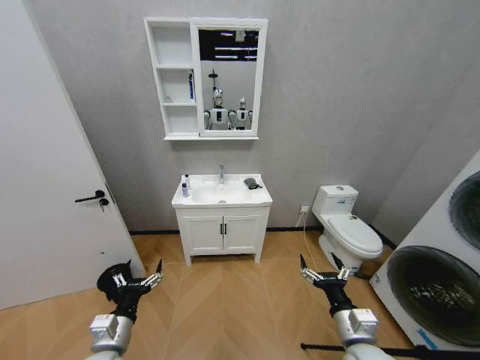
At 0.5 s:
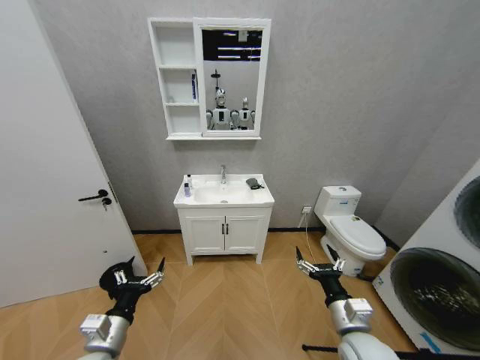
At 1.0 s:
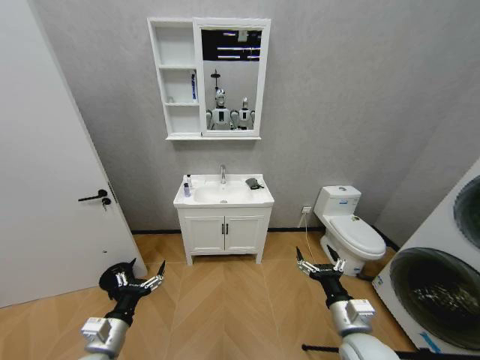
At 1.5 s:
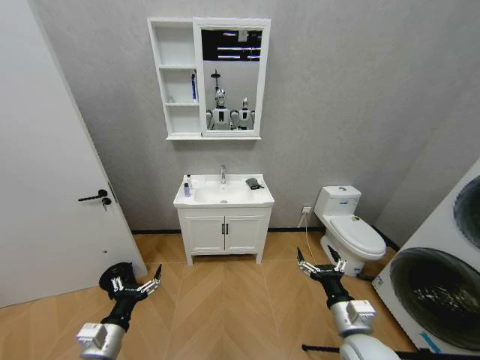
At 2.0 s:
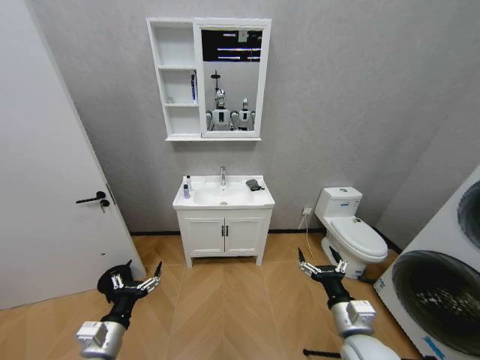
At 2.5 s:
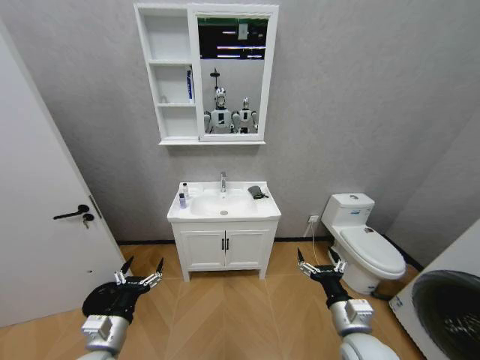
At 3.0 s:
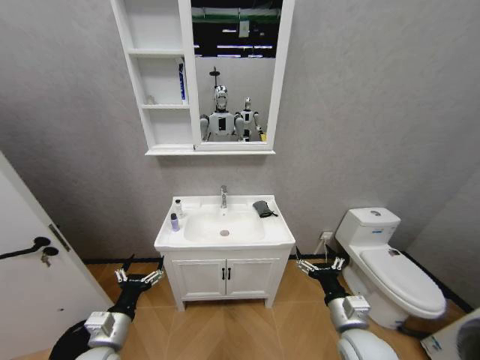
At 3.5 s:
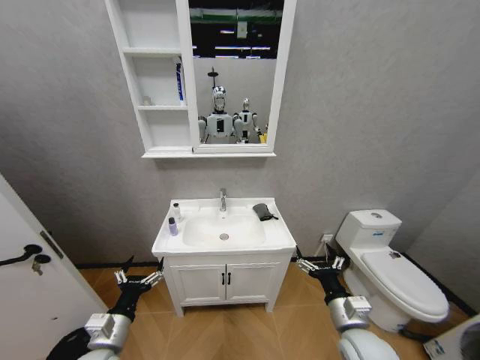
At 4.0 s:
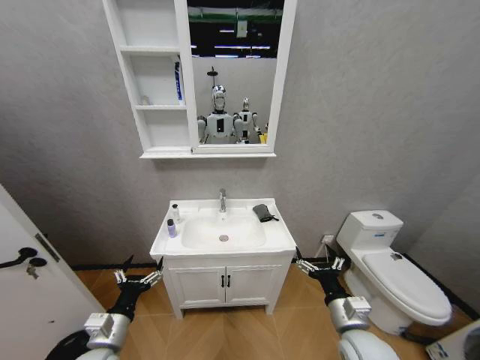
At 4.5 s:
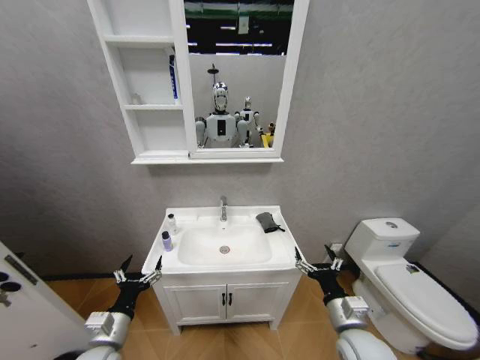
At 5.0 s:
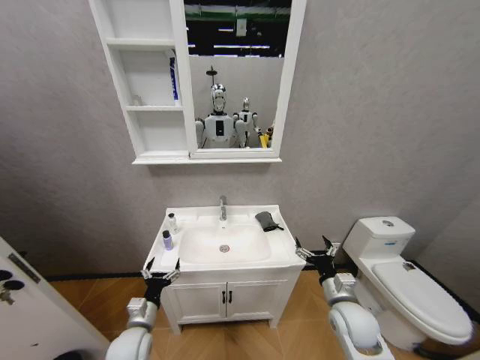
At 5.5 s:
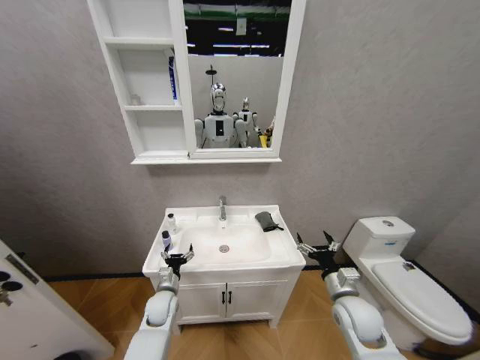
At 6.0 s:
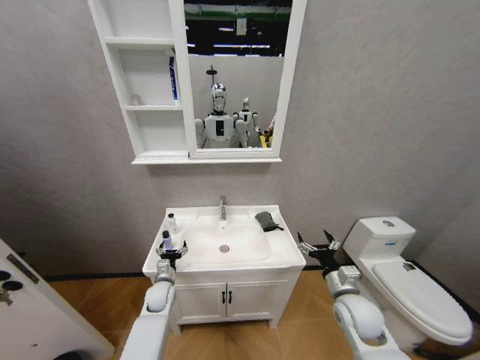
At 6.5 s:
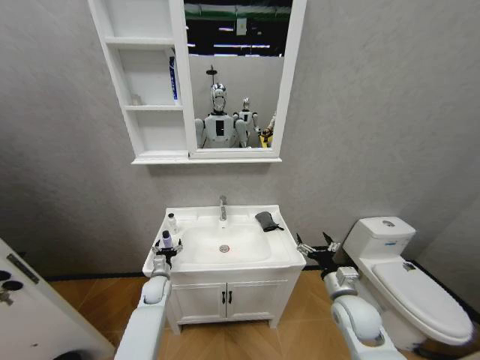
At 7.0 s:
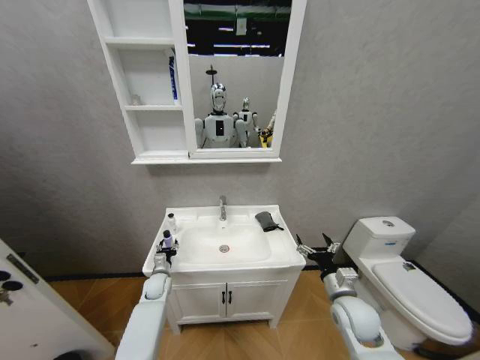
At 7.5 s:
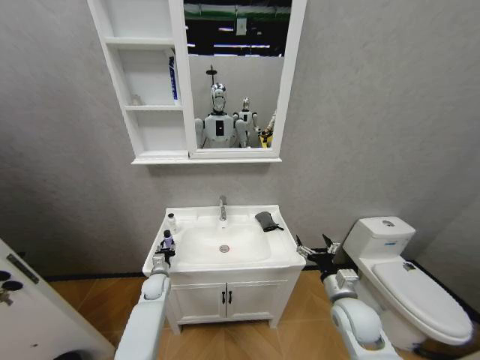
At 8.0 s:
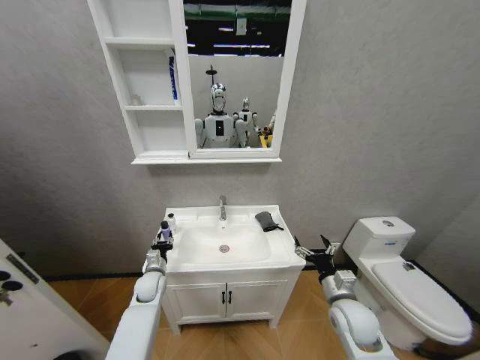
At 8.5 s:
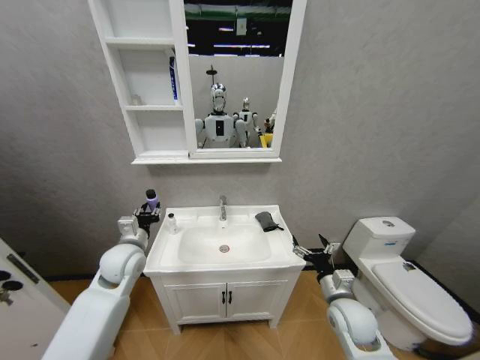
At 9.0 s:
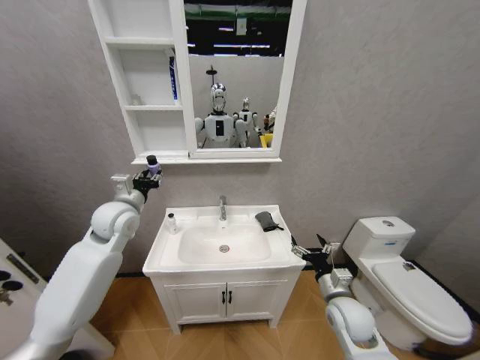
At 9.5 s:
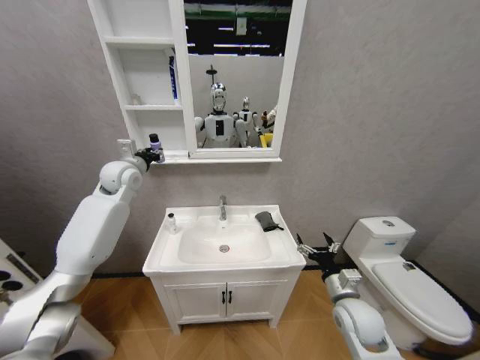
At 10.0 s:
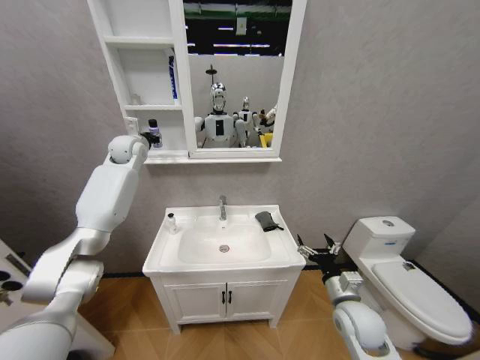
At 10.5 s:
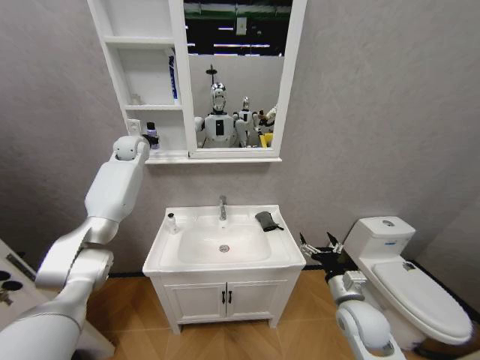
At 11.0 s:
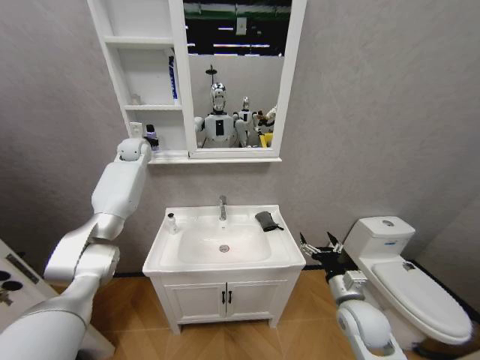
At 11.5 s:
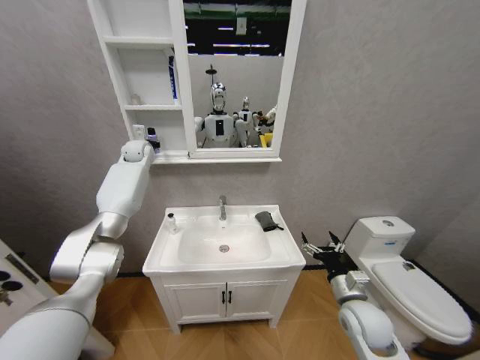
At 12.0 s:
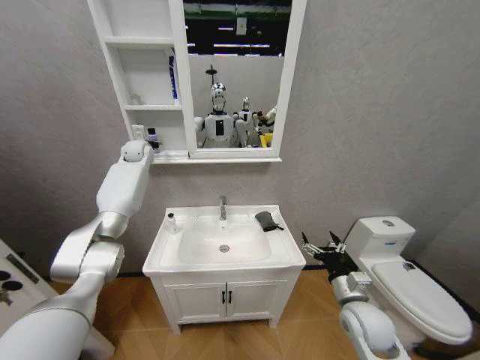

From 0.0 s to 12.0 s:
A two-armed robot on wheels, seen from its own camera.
Task of the whole recording: Move facial cleanser and shampoo from washbasin to cabinet, then wipe washbasin with towel.
From 4.0 s to 6.0 s: The left gripper shifts roughly 25 cm forward and downward. The right gripper travels forward by roughly 10 cm.
From 6.0 s to 8.0 s: The left gripper shifts by approximately 5 cm, and closes.
From 8.0 s to 10.0 s: The left gripper goes approximately 50 cm upward and forward.
From 10.0 s to 12.0 s: The left gripper is displaced forward by some 5 cm, and opens up.

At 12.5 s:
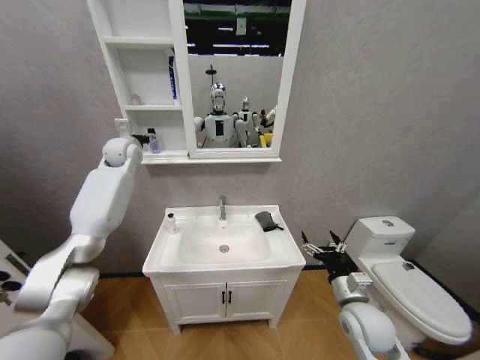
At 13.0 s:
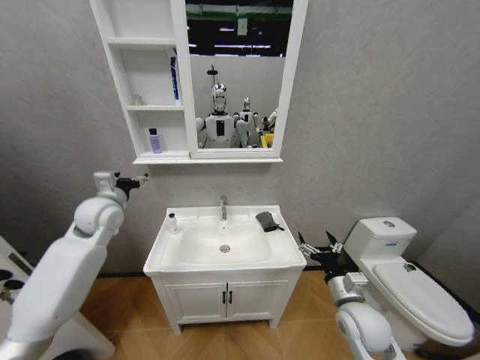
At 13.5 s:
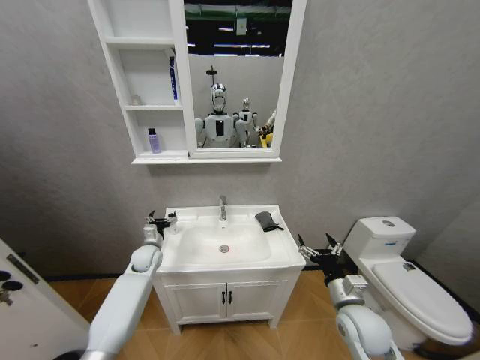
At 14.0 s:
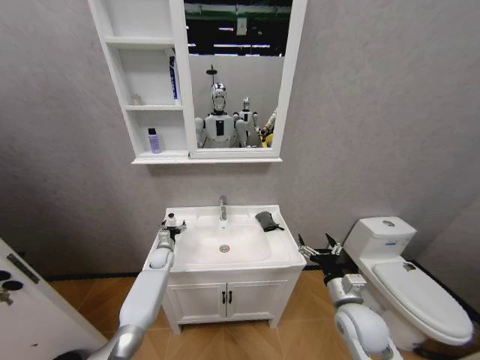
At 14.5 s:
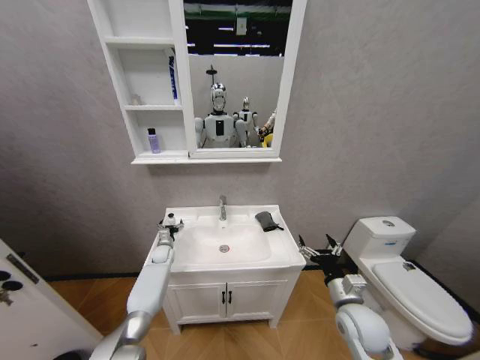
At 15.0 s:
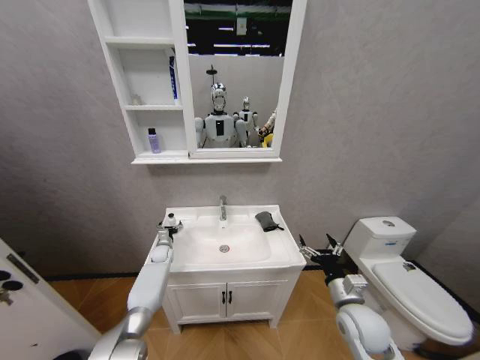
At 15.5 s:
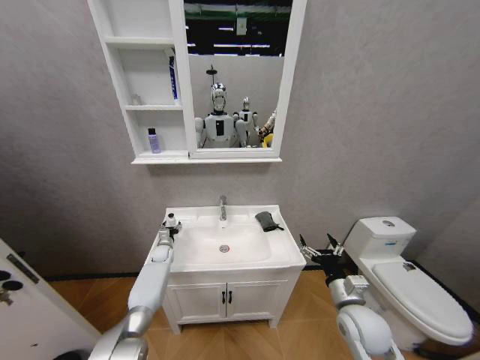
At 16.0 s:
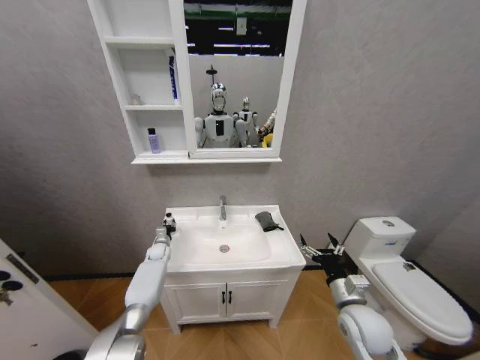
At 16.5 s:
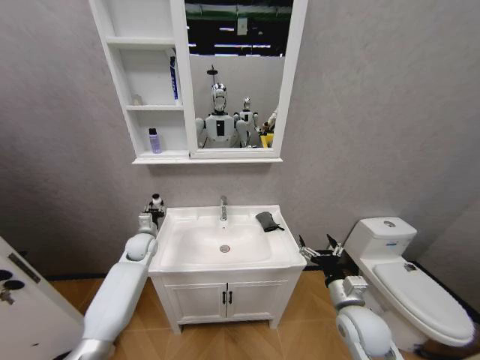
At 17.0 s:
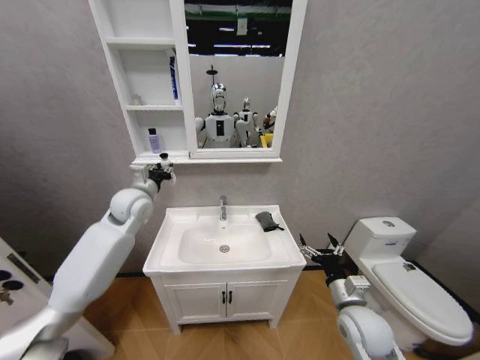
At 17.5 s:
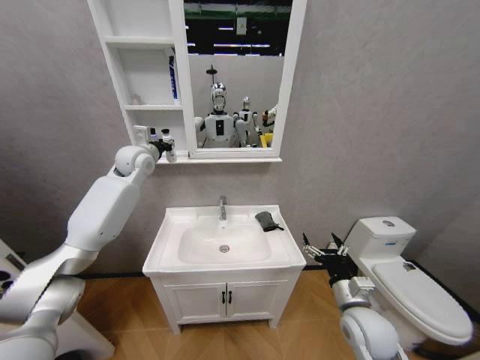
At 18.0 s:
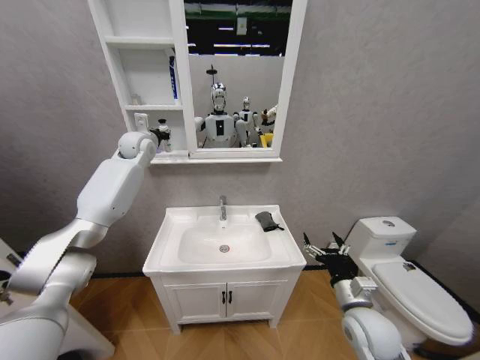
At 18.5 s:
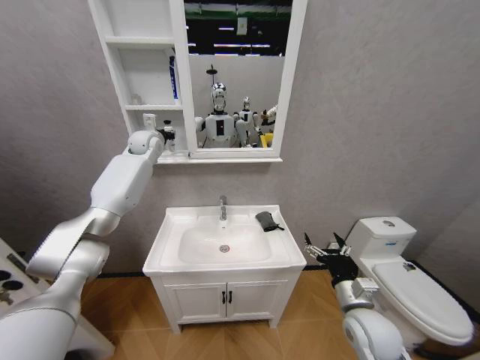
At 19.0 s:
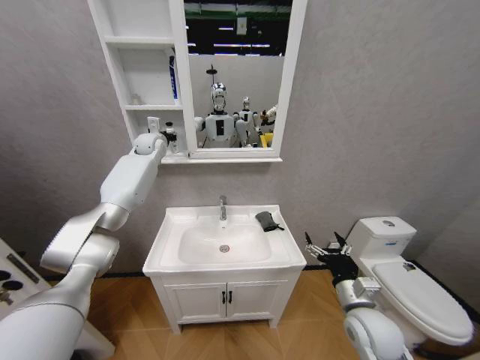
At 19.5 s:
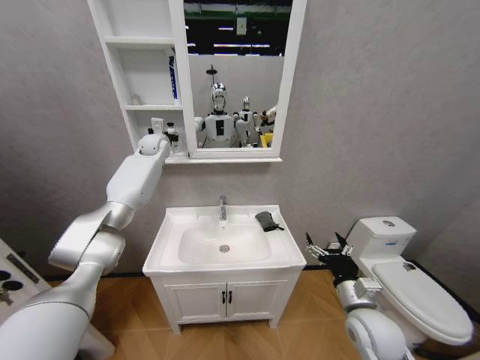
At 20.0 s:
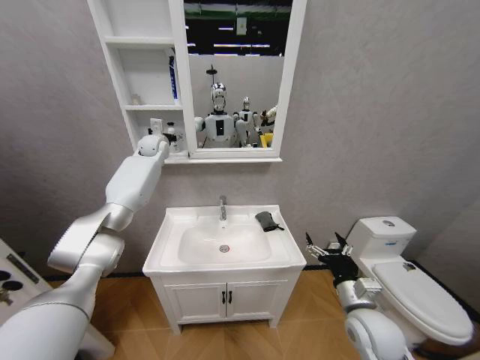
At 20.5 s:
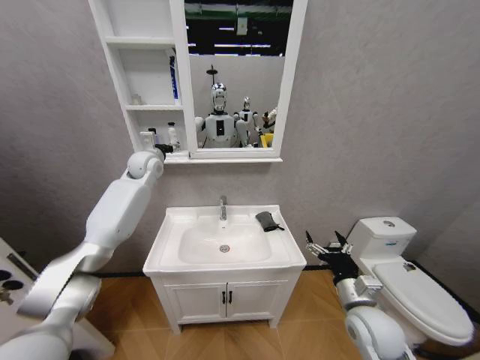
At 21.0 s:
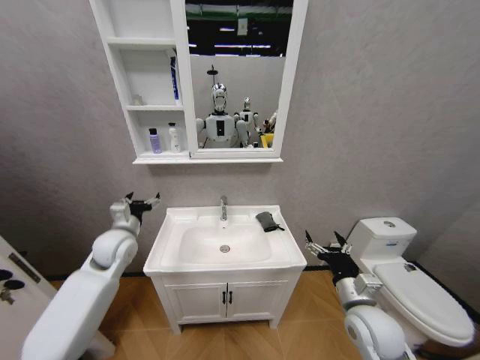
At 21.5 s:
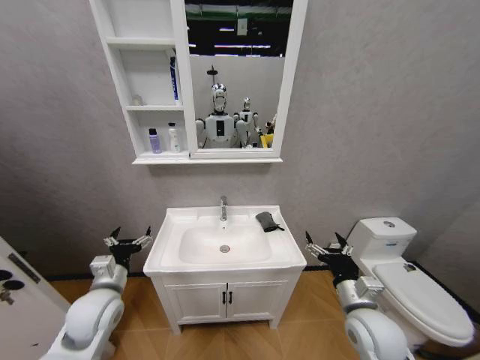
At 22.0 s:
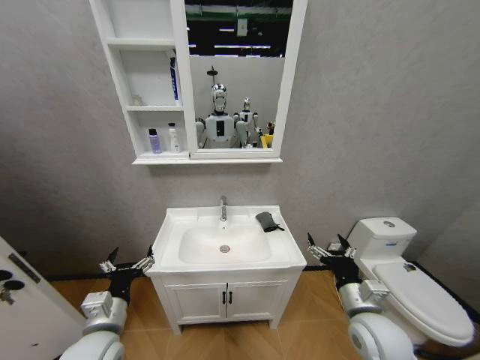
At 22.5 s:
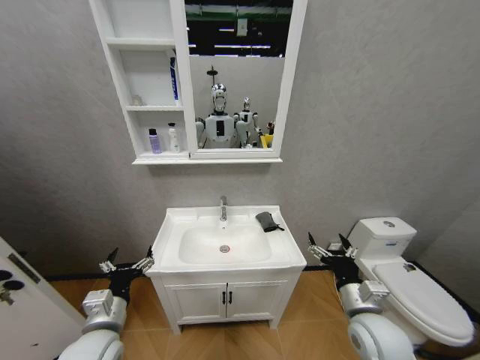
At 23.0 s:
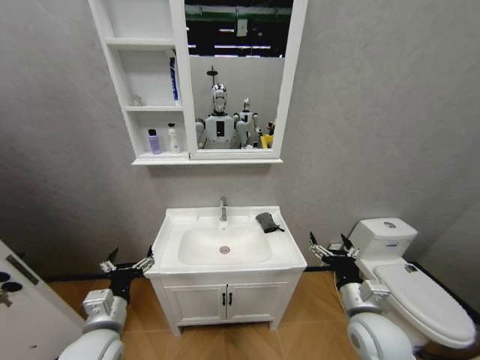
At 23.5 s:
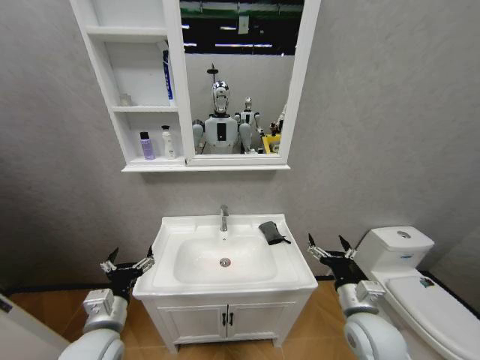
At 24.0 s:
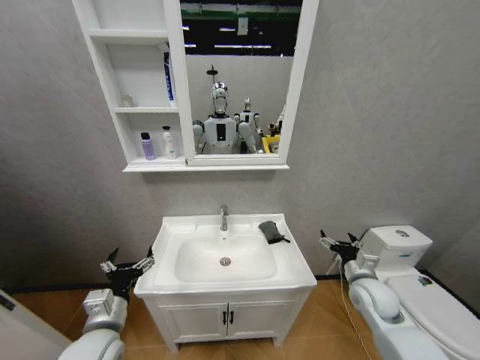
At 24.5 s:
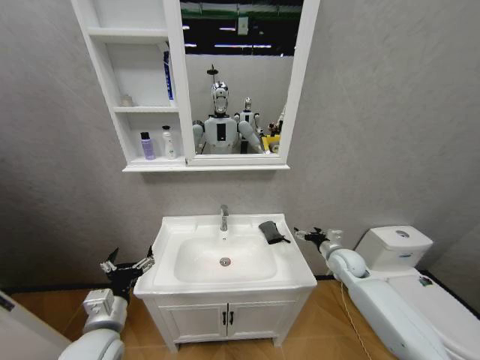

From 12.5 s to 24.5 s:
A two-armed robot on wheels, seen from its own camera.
Task of the whole recording: Move facial cleanser and shampoo from washbasin to cabinet, then wipe washbasin with towel.
From 12.5 s to 14.5 s: The left gripper heads downward, covering some 40 cm.
From 14.5 s to 16.5 s: The left gripper goes approximately 15 cm upward, and closes up.
From 16.5 s to 18.5 s: The left gripper shifts roughly 35 cm upward and forward.
From 18.5 s to 20.5 s: The left gripper goes approximately 5 cm backward, and opens up.
From 20.5 s to 22.5 s: The left gripper is displaced backward and downward by some 40 cm.
From 22.5 s to 24.5 s: The right gripper travels forward and to the right by about 20 cm.

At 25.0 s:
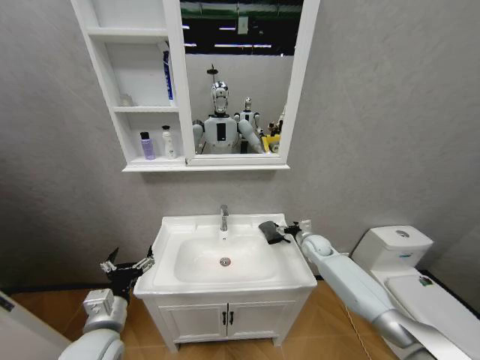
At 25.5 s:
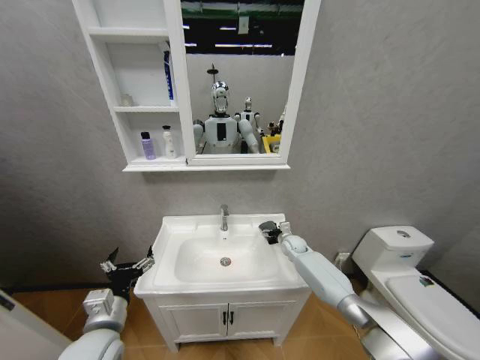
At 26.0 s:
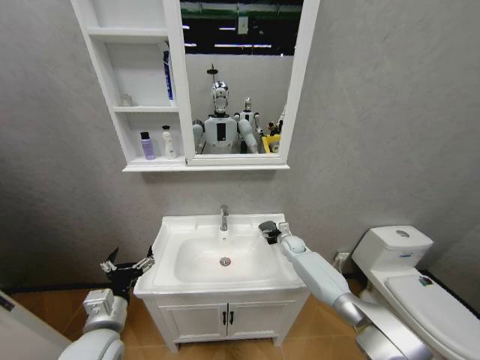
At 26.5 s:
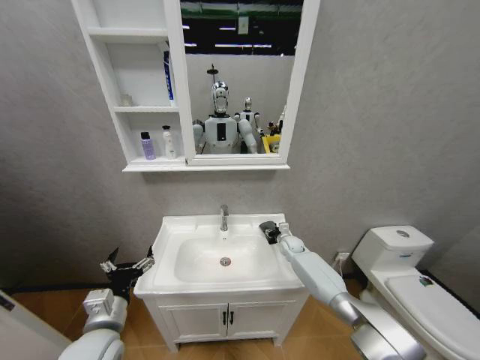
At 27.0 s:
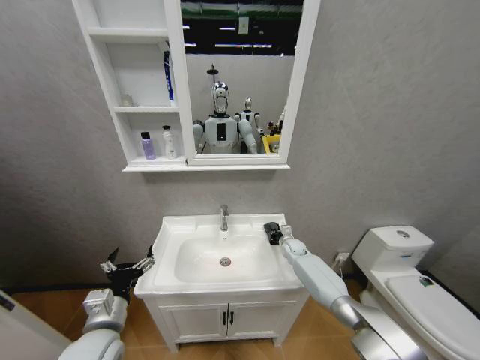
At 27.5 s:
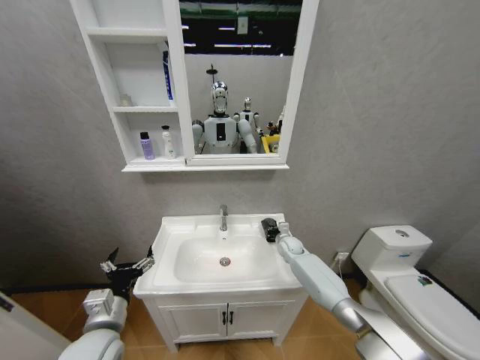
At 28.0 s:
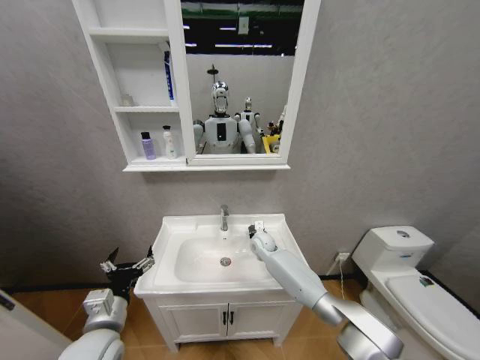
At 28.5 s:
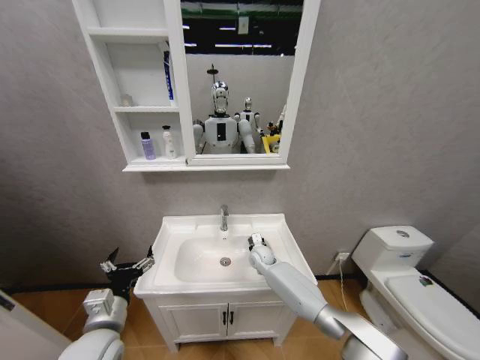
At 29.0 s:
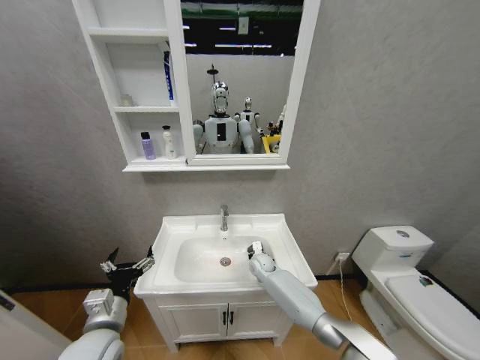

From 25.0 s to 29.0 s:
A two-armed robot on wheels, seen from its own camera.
Task of the whole recording: Move facial cleanser and shampoo from washbasin to cabinet, then wipe washbasin with towel.
From 25.0 s to 27.0 s: The right gripper moves downward, approximately 5 cm, and closes up.
From 27.0 s to 29.0 s: The right gripper shifts about 15 cm to the left and backward.
